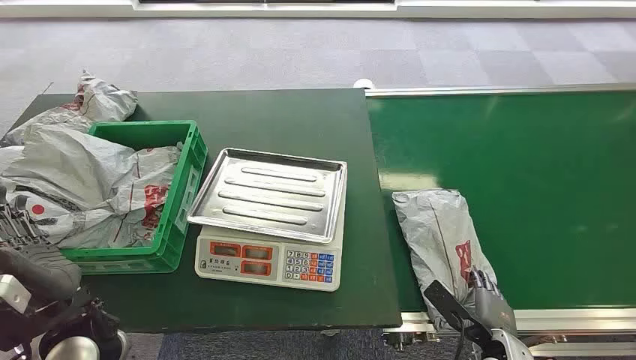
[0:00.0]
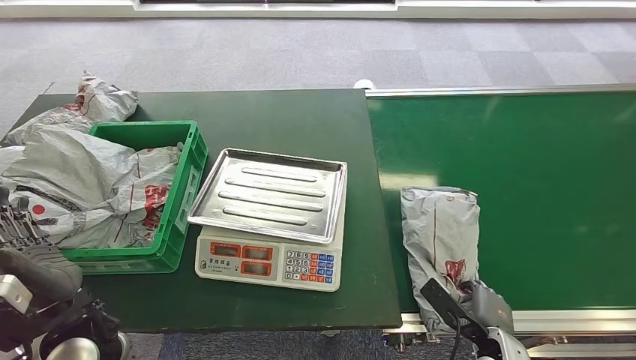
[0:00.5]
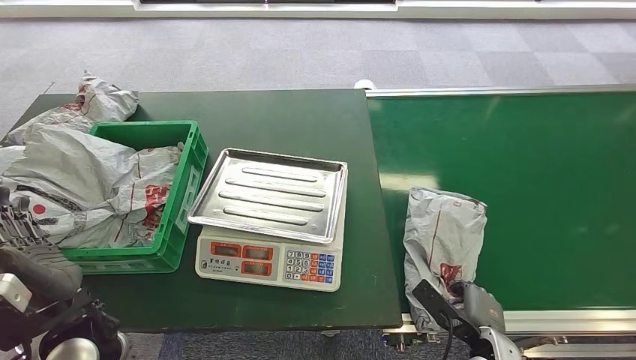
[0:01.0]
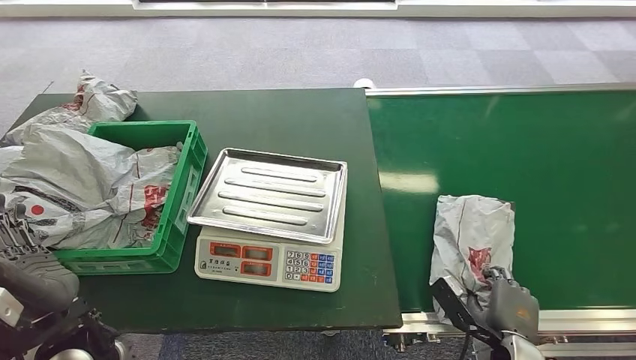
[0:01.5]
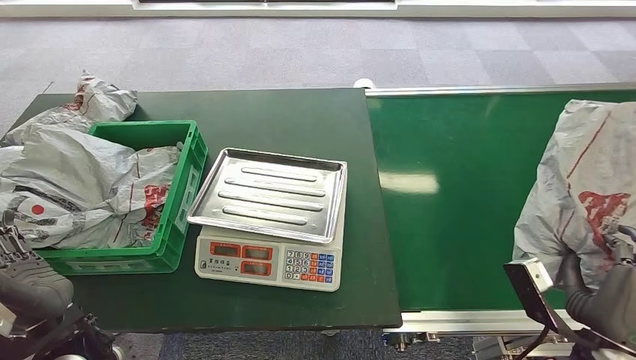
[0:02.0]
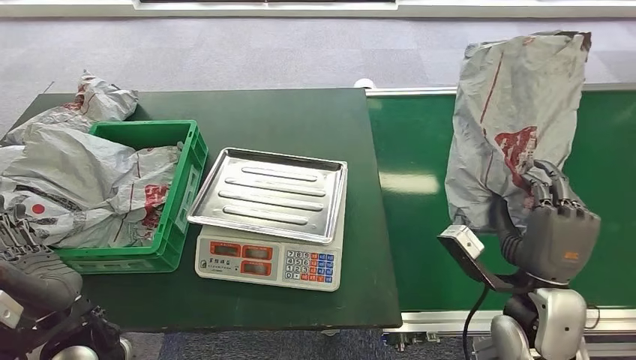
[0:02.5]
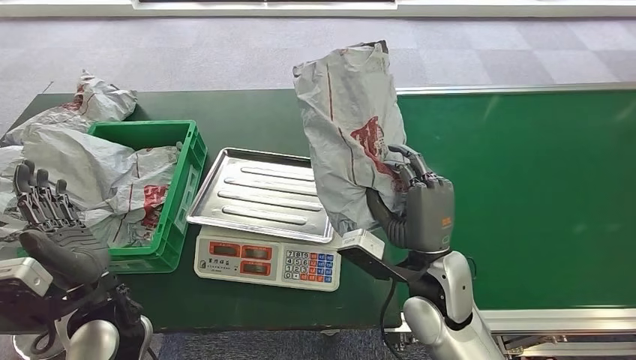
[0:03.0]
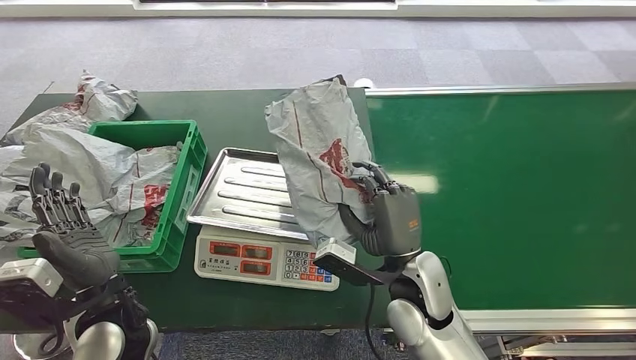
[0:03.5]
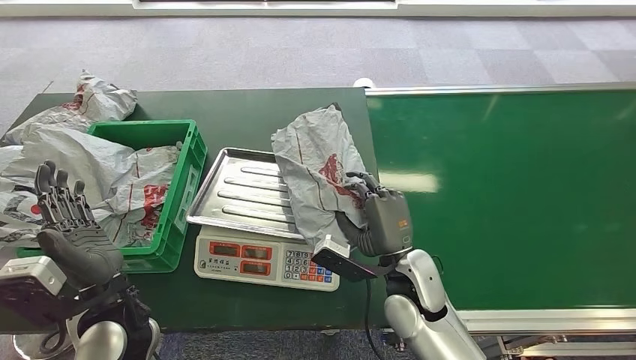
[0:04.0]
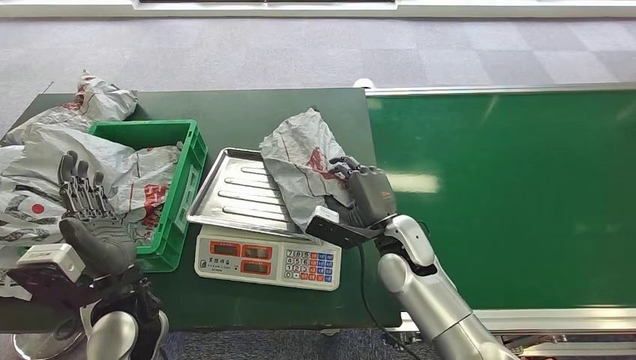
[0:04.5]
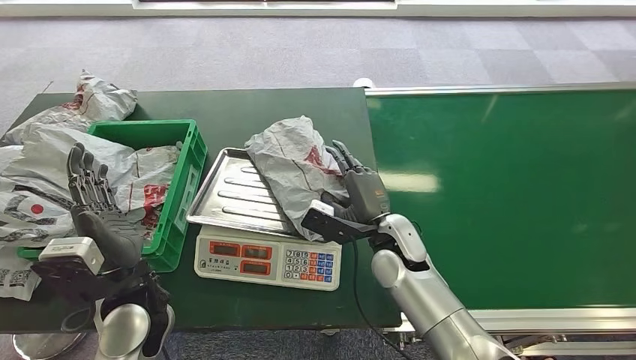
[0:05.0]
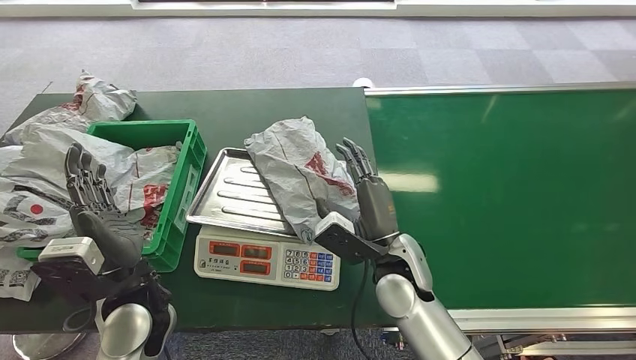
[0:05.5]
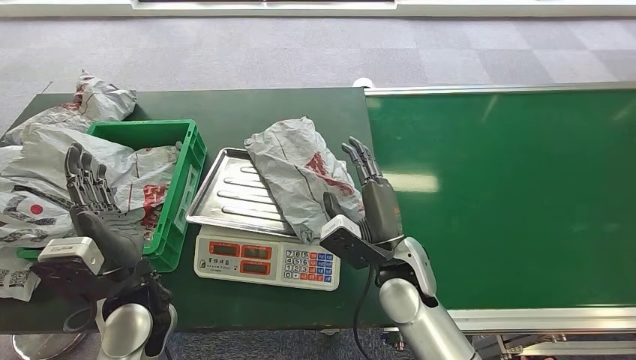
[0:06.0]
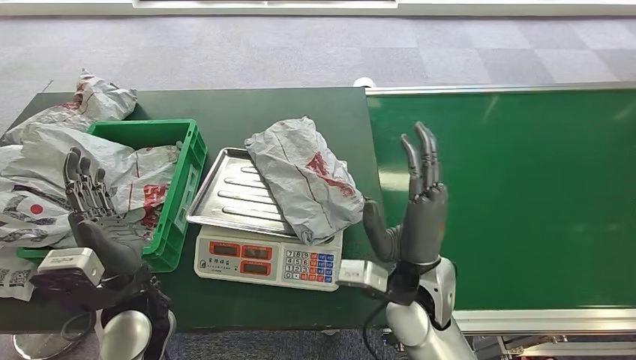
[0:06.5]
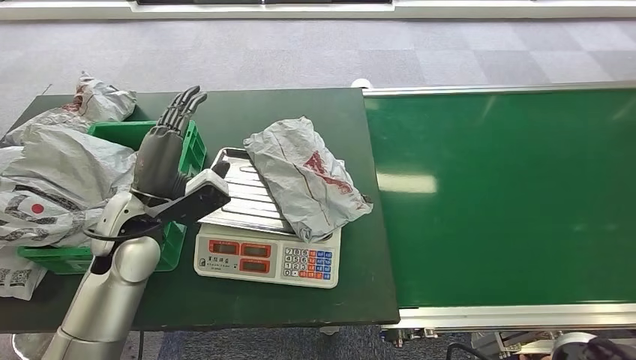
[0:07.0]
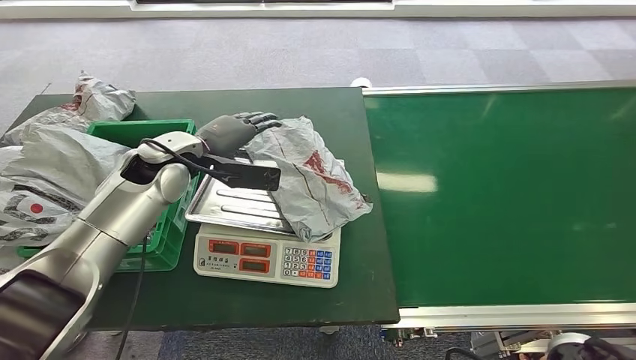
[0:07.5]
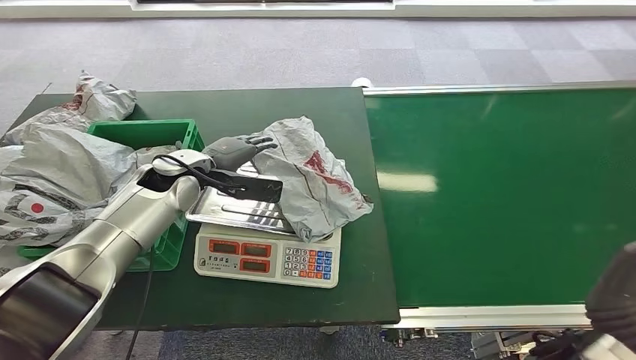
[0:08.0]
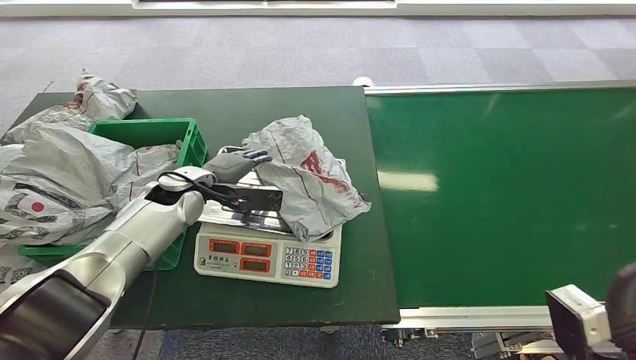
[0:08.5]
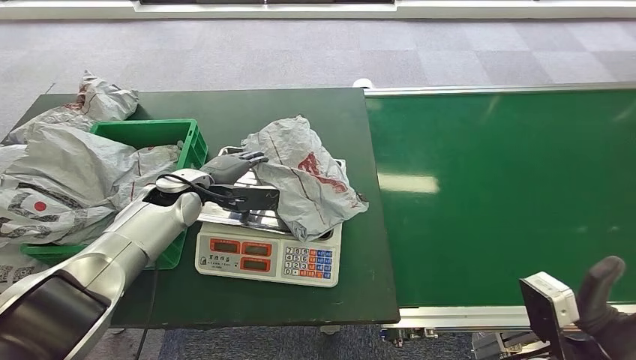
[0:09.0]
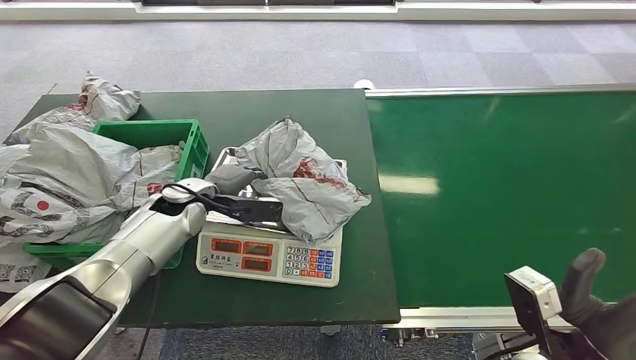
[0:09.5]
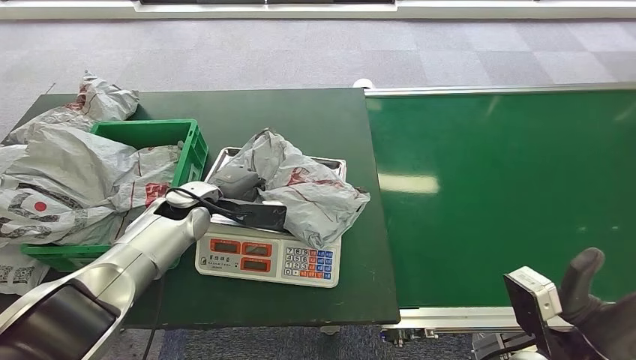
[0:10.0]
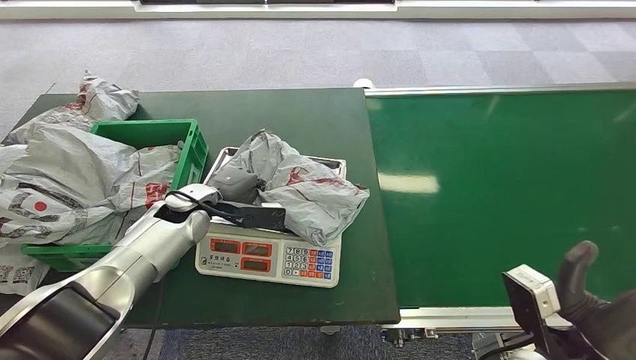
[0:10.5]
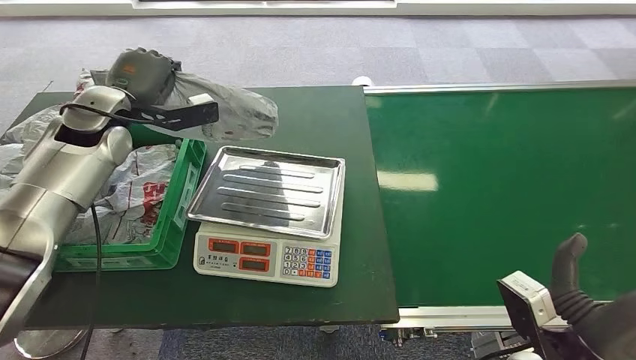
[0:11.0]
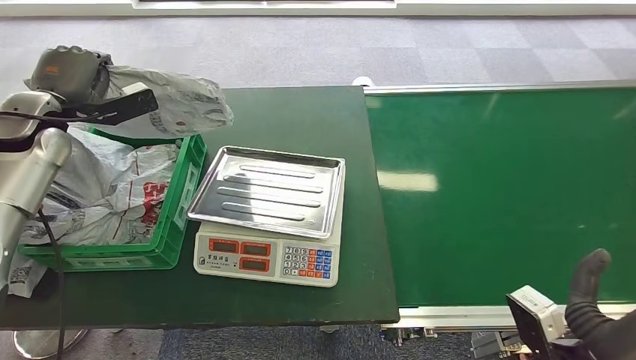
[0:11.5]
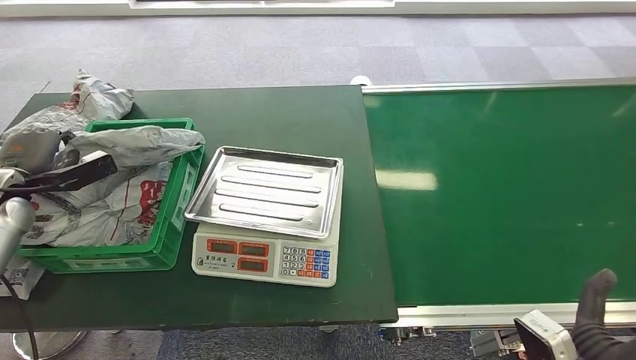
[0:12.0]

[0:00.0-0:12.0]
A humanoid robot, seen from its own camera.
Step, 0:00.0 to 0:01.5: Pick up the package from the conveyor belt.
Step, 0:02.0 to 0:05.5: Place the package onto the inbound machine.
Step, 0:07.5 to 0:11.0: Pick up the package from the inbound machine.
Step, 0:11.5 to 0:12.0: Place the package into the parcel locker.

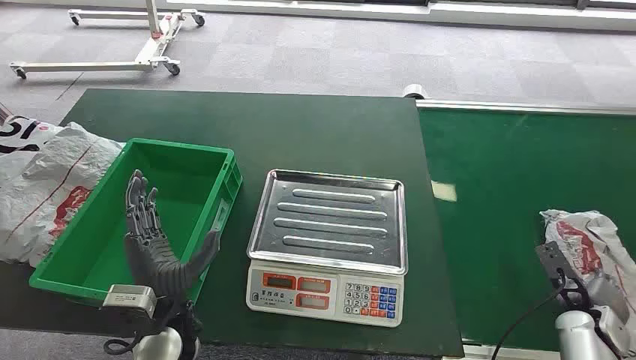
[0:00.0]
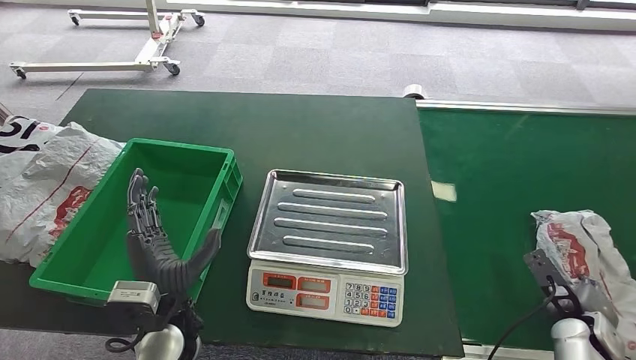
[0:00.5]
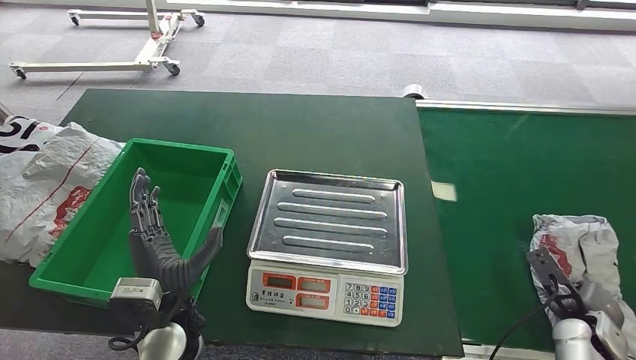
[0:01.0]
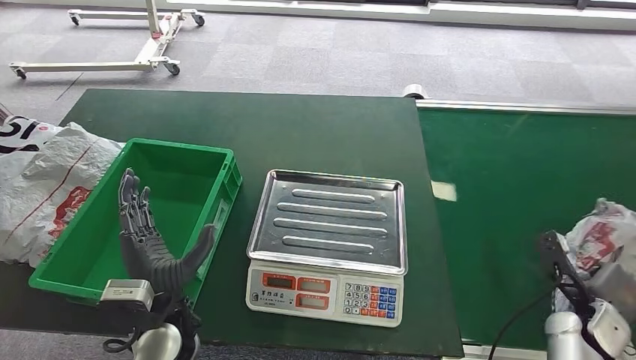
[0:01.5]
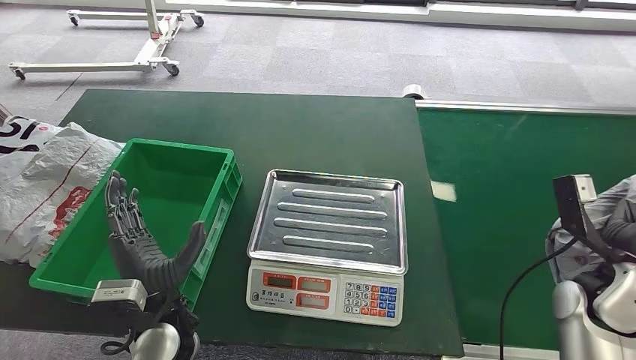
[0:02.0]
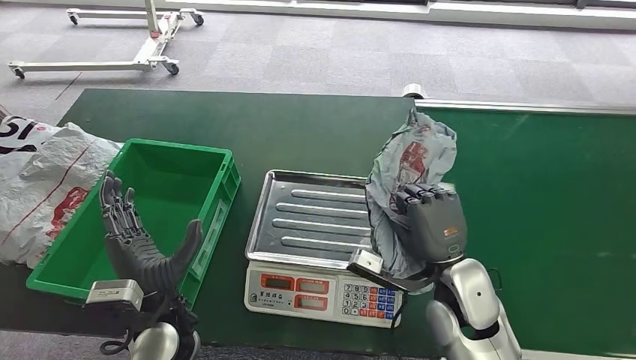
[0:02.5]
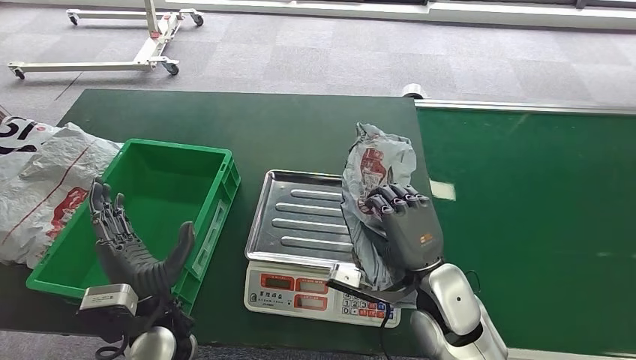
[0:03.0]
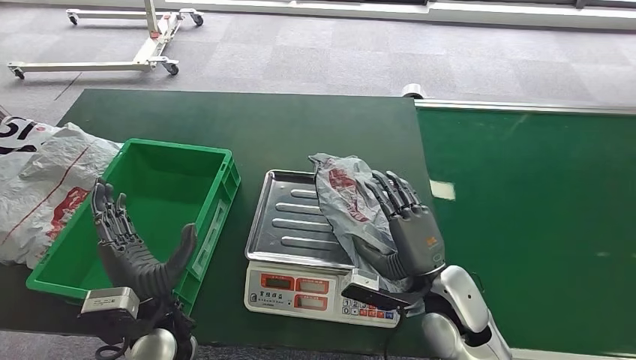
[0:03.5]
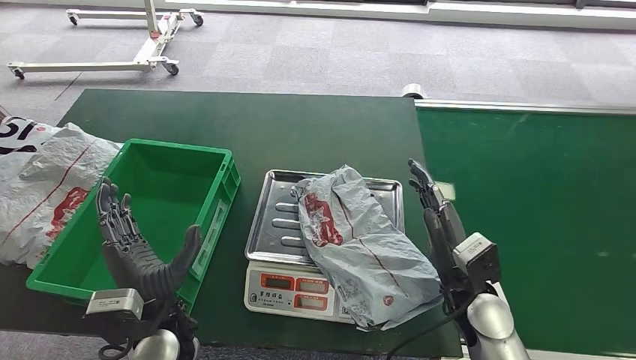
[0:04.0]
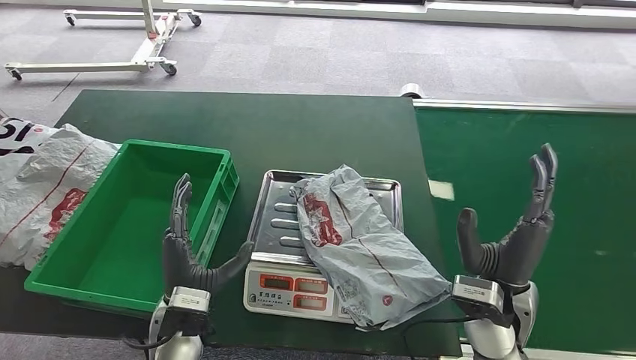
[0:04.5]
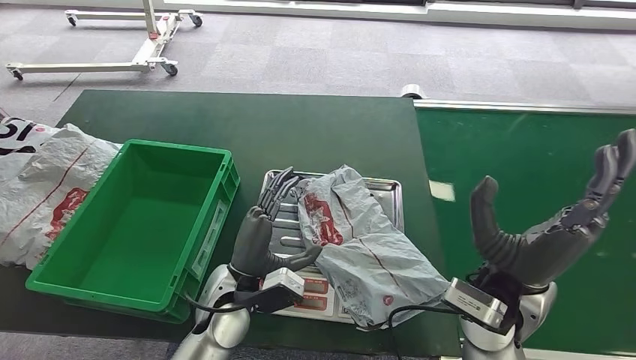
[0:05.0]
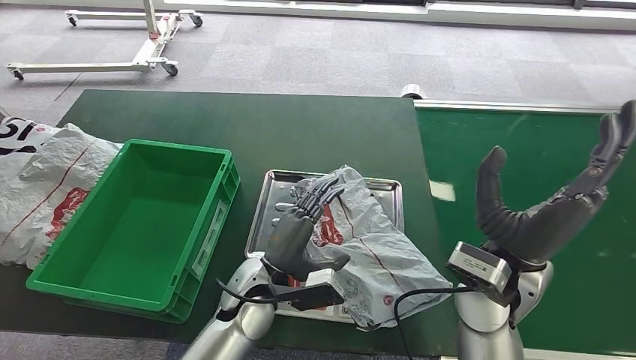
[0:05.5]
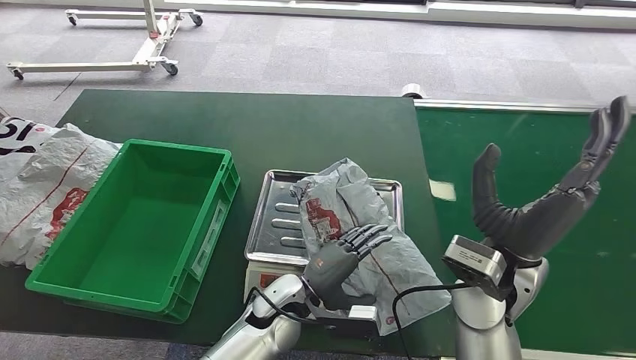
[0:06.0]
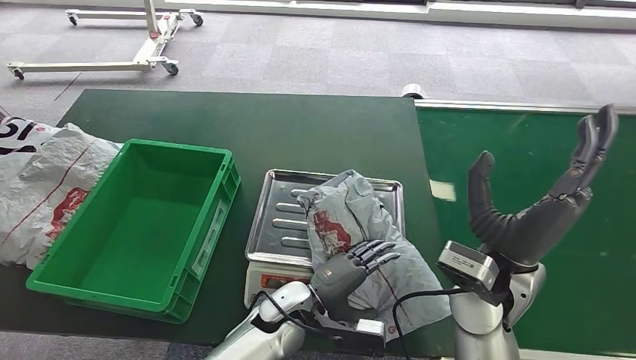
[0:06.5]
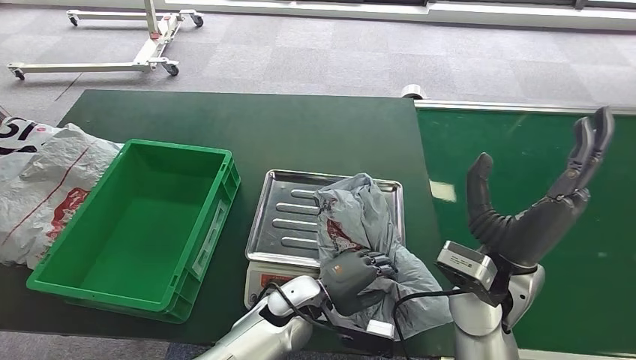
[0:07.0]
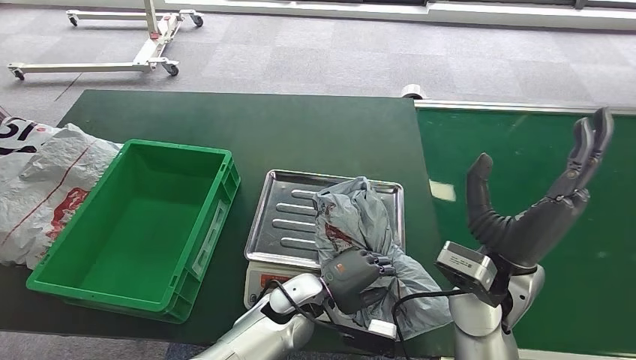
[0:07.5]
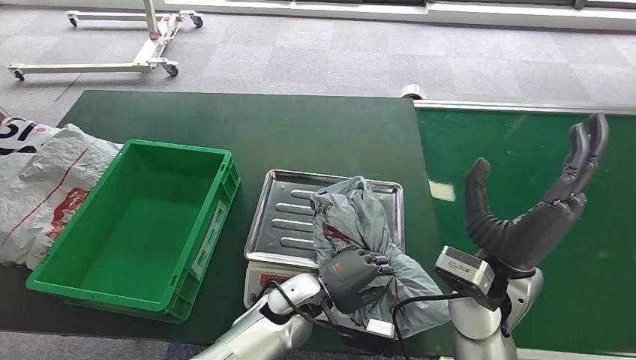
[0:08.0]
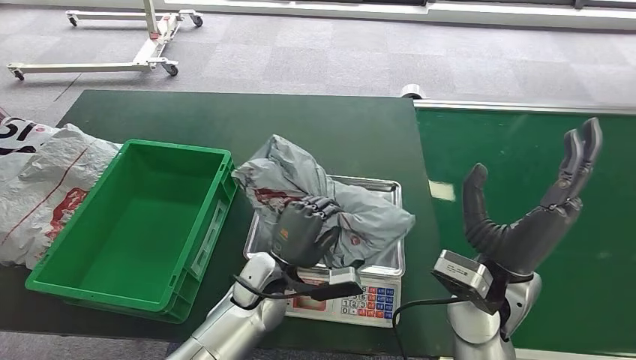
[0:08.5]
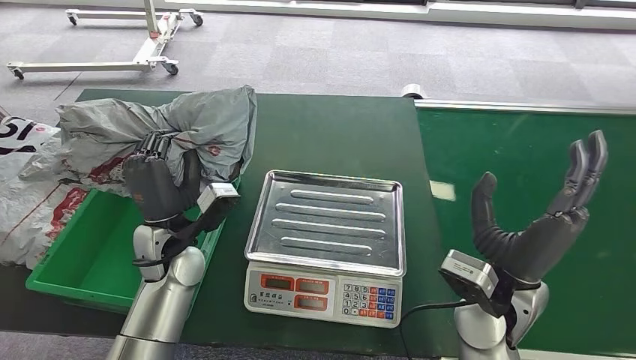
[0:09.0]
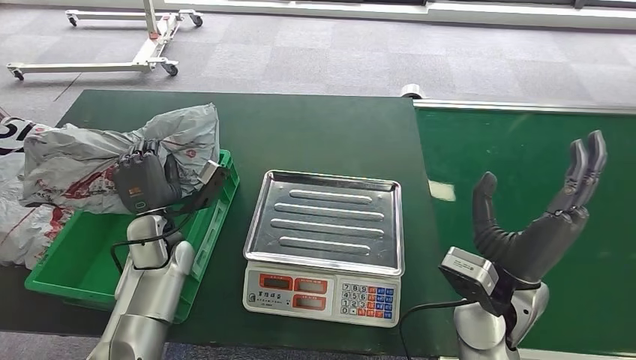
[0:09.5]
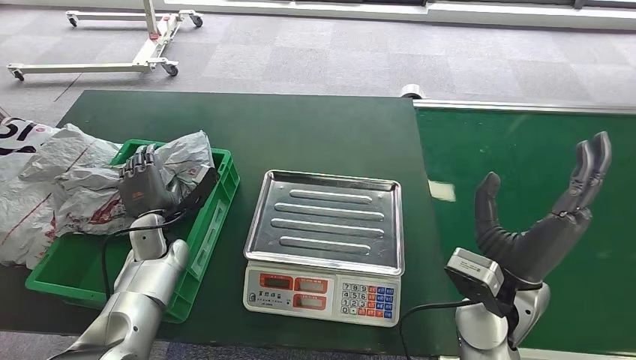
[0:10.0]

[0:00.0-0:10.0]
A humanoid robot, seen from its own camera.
Step, 0:00.0 to 0:02.0: Pick up the package from the conveyor belt.
Step, 0:02.5 to 0:03.5: Place the package onto the inbound machine.
Step, 0:04.5 to 0:08.5: Pick up the package from the inbound machine.
Step, 0:09.0 to 0:10.0: Place the package into the parcel locker.
0:02.0 to 0:04.0: The right hand travels to the left by some 15 cm.
0:04.0 to 0:06.0: The right hand travels upward by approximately 10 cm. The left hand travels to the right, downward and forward by approximately 15 cm.
0:06.0 to 0:08.0: The hands stay close to where they were, moving slightly.
